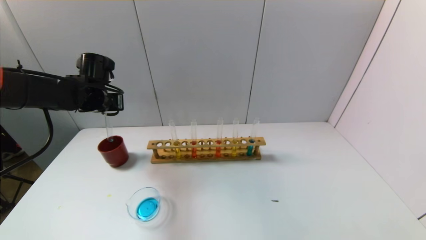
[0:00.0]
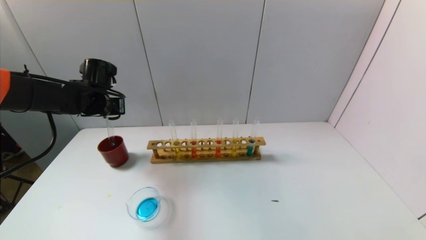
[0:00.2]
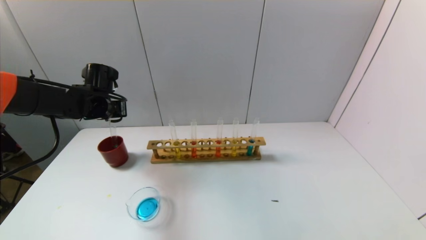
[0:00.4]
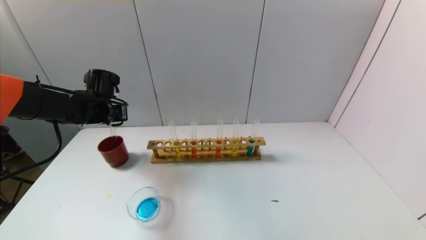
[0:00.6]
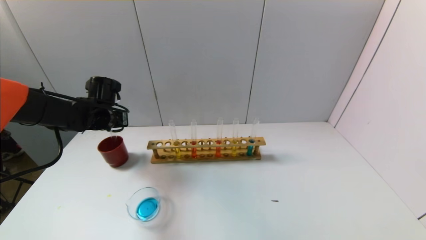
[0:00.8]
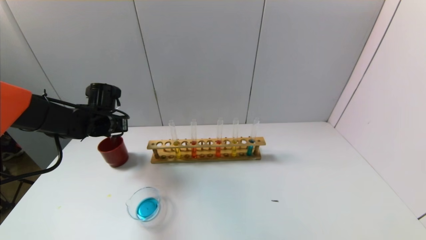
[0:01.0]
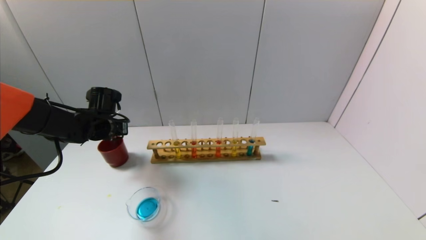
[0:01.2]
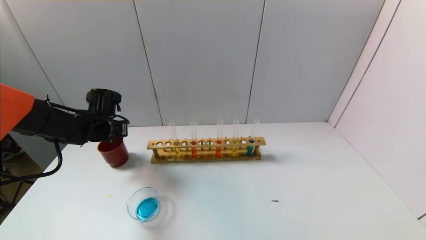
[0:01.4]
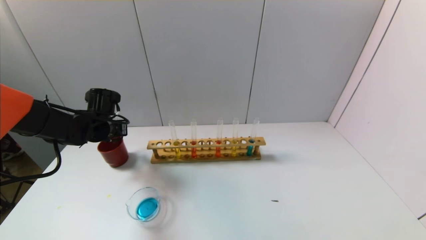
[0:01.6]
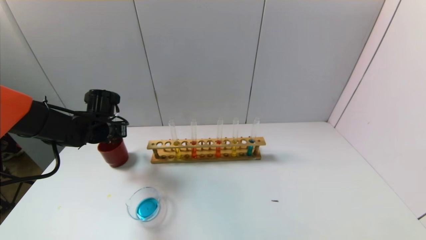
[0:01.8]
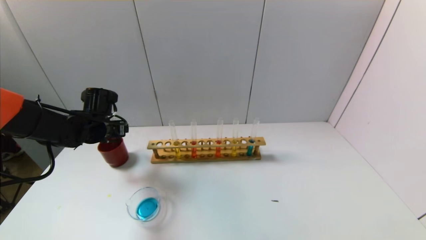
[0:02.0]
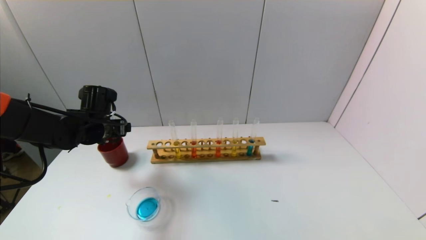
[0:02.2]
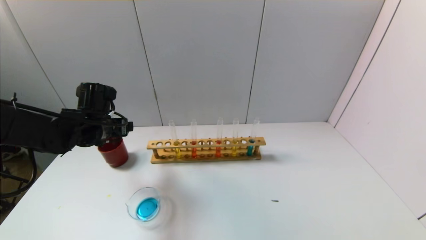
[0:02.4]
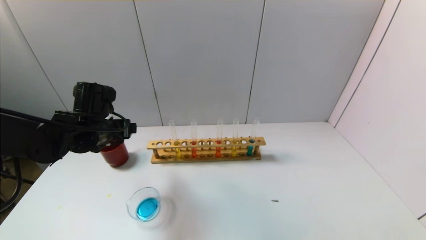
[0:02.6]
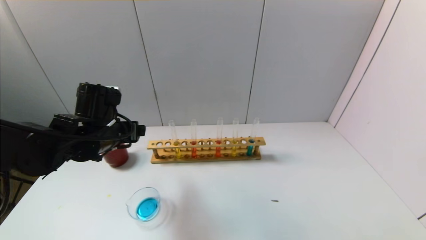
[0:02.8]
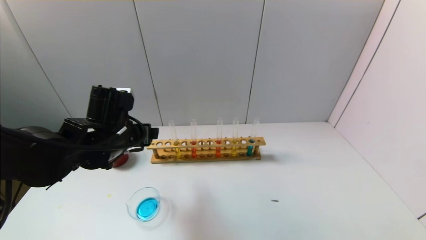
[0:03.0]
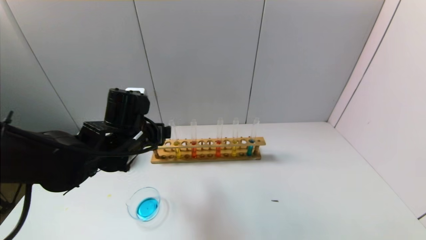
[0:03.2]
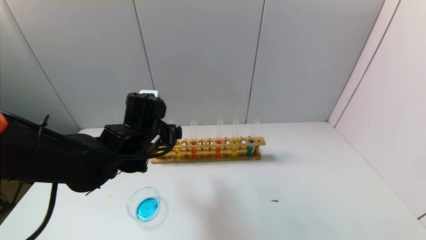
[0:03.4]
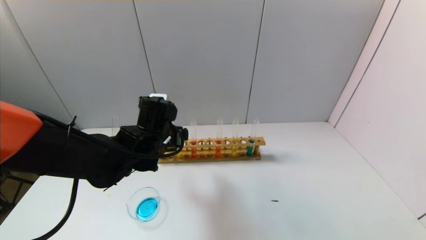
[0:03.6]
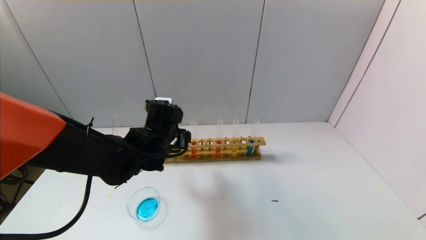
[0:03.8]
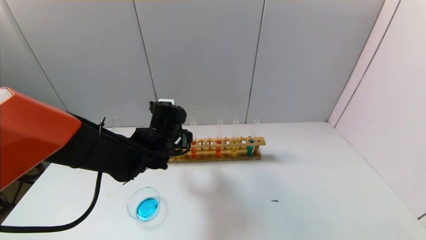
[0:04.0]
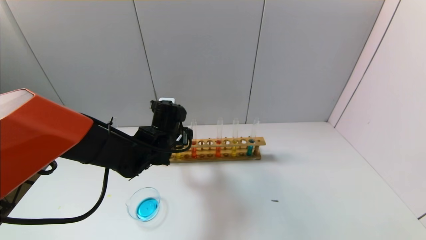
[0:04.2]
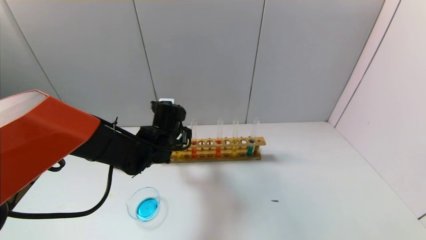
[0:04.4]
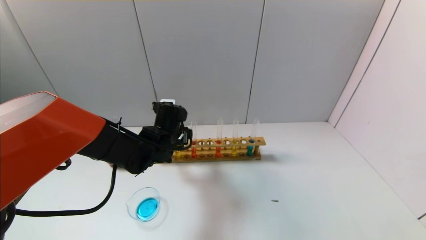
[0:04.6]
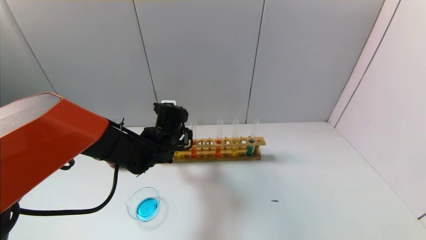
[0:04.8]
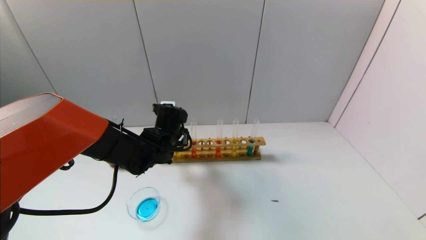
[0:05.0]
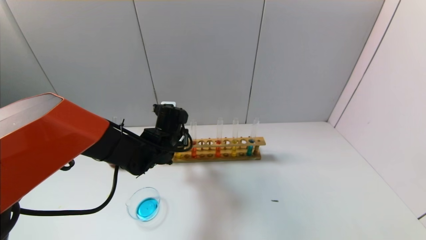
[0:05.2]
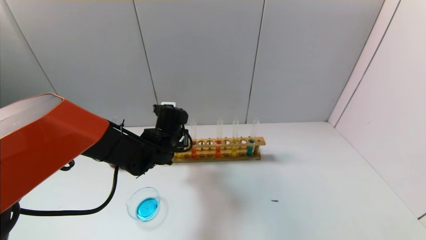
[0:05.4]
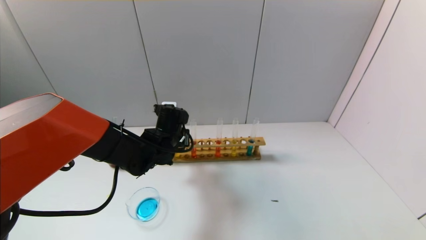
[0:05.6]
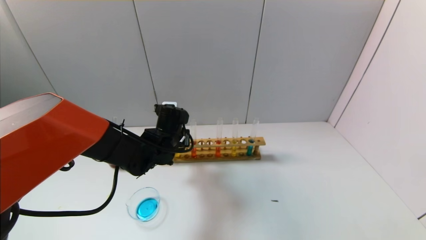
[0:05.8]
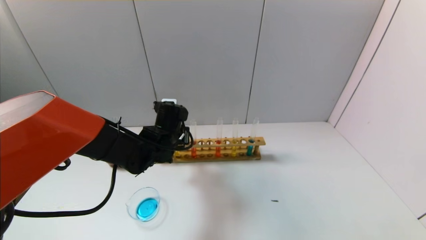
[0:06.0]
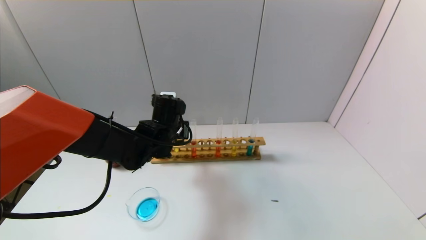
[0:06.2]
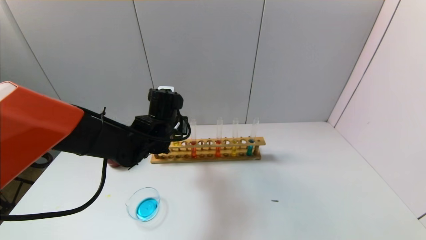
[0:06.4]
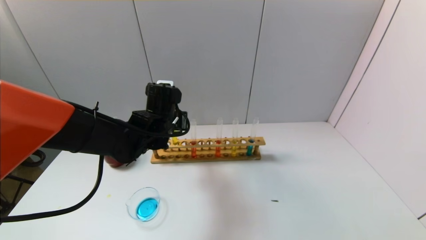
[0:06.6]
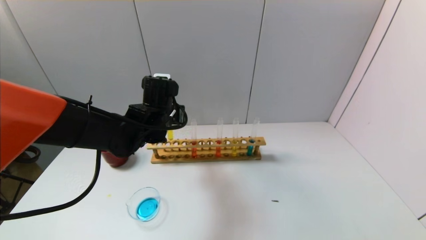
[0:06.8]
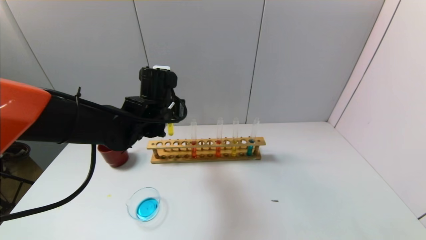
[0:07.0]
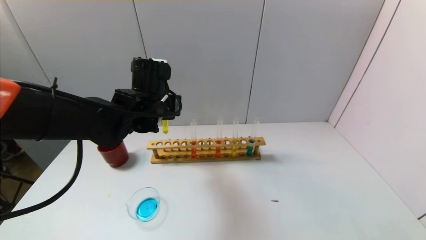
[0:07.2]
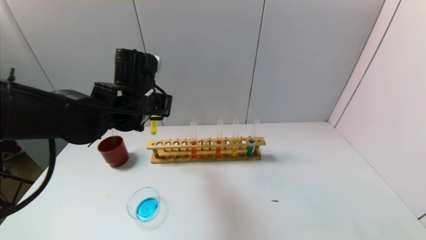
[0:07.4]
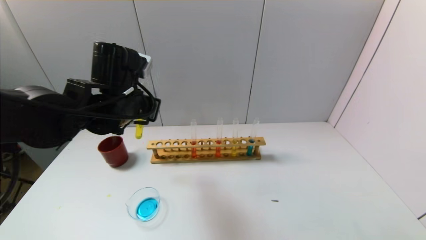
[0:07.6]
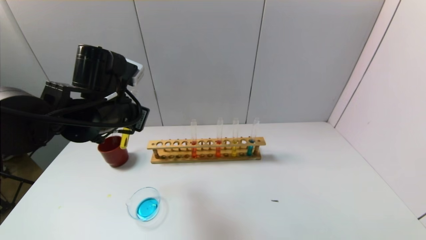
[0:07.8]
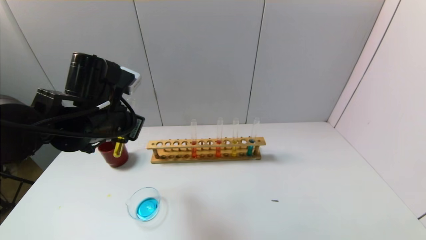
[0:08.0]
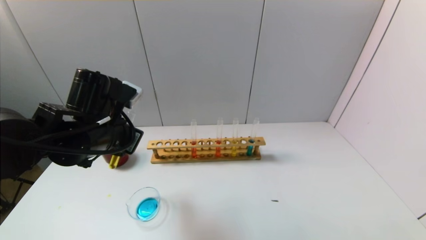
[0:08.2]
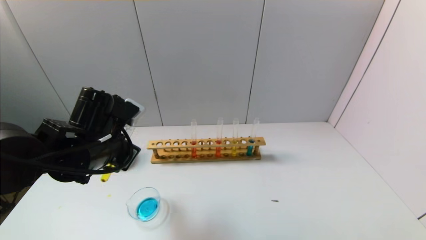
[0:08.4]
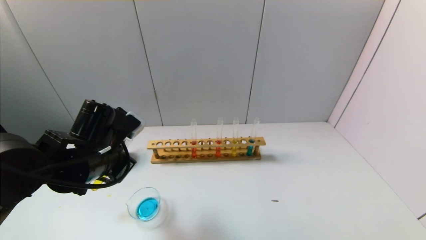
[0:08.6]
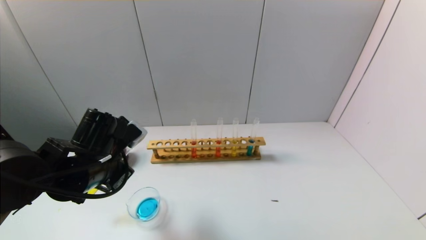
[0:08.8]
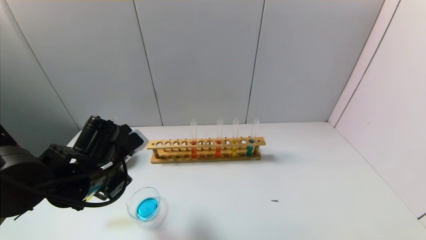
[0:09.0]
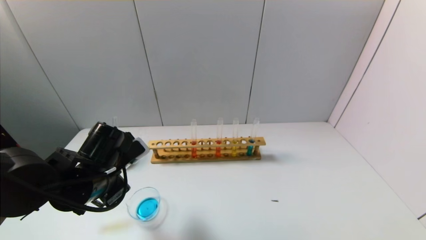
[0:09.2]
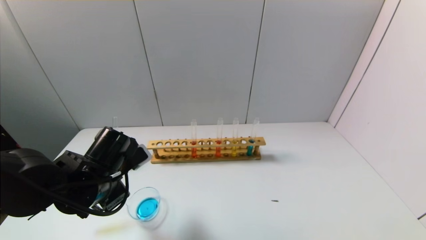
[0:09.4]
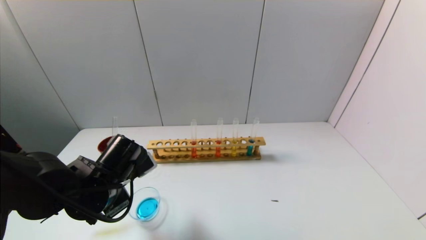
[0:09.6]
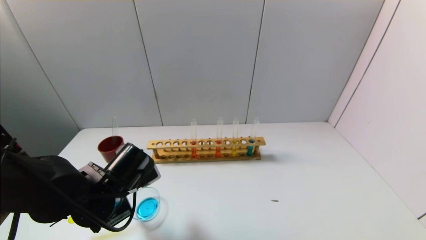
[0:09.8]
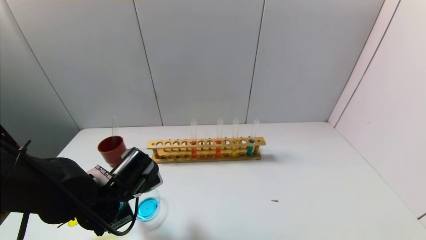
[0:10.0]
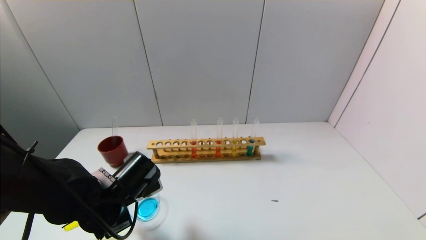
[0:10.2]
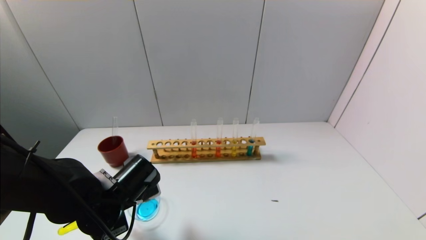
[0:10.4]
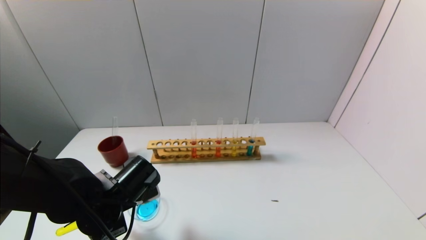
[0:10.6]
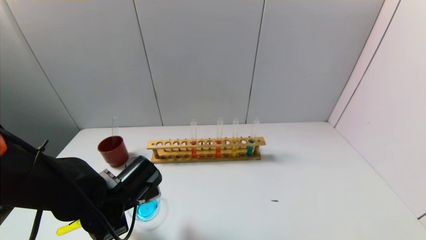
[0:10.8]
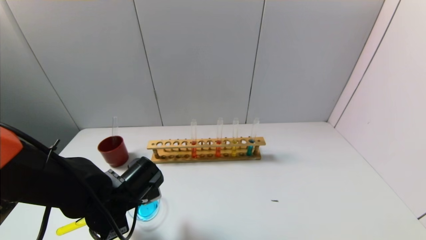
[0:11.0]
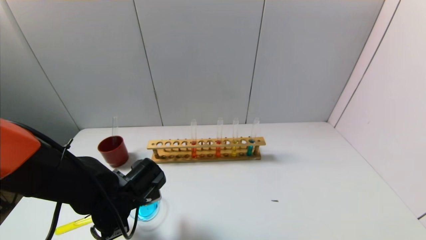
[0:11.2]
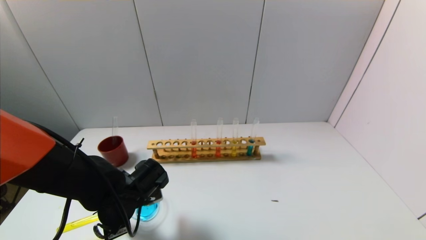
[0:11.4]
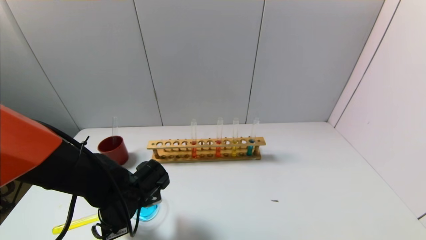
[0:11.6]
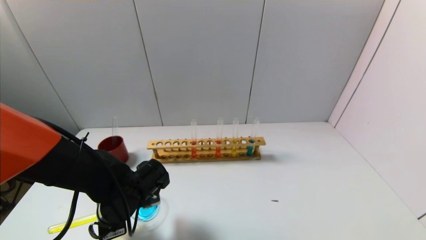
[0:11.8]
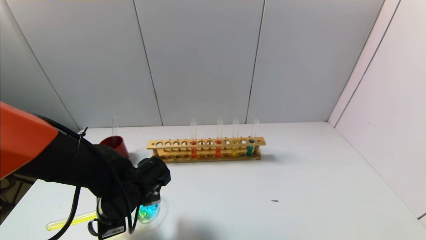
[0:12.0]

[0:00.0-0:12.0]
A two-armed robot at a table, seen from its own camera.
Task of the whole recording: pick up the test tube with yellow pigment and the test tube with blue pigment by grippers and pour them into the beaker.
Step, 0:01.8 to 0:05.4: Grasp the yellow reagent with the left gripper.
0:00.0 to 0:01.6: The left gripper travels downward by some 10 cm.
0:01.6 to 0:03.0: The left gripper goes approximately 15 cm backward, to the right and upward, and opens its fingers.
0:03.0 to 0:04.4: The left gripper shifts roughly 10 cm forward, to the right and downward.
0:04.4 to 0:06.0: The left gripper closes.
0:06.0 to 0:07.6: The left gripper heads upward, backward and to the left, covering about 15 cm.
0:07.6 to 0:09.0: The left gripper moves downward and backward, about 10 cm.
0:09.0 to 0:10.4: The left gripper shifts roughly 5 cm downward.
0:10.4 to 0:12.0: The grippers move only a little.

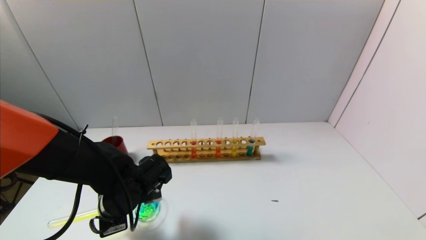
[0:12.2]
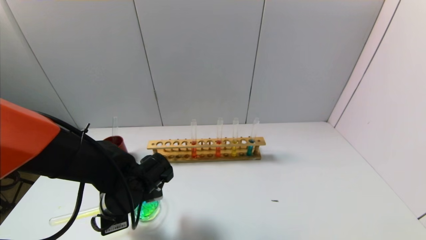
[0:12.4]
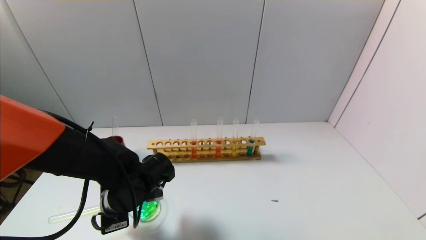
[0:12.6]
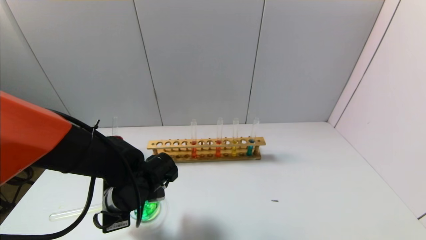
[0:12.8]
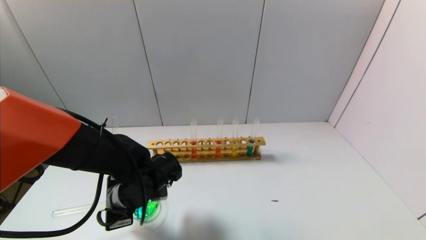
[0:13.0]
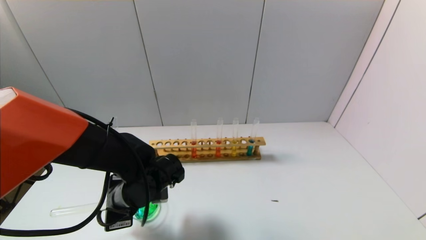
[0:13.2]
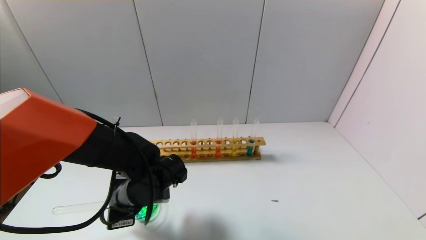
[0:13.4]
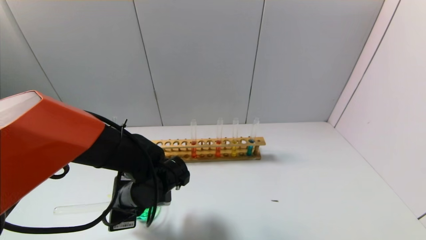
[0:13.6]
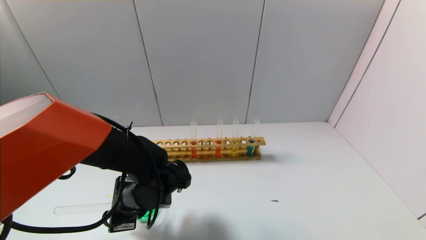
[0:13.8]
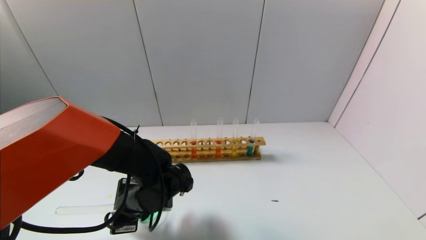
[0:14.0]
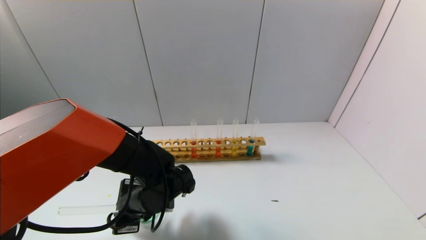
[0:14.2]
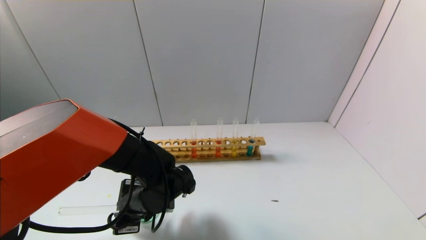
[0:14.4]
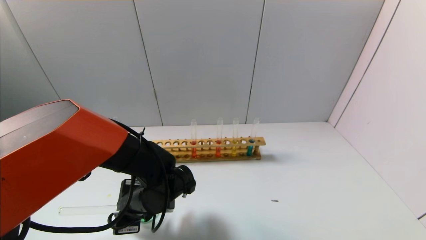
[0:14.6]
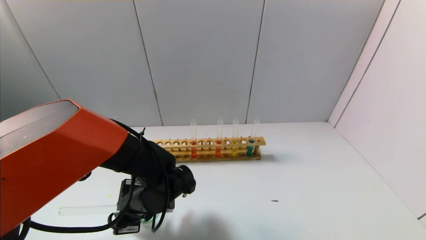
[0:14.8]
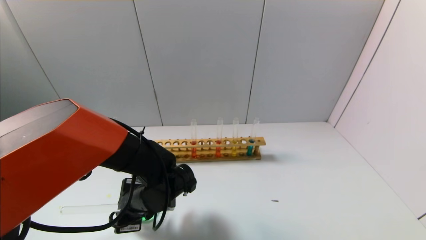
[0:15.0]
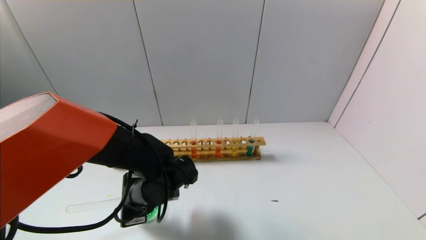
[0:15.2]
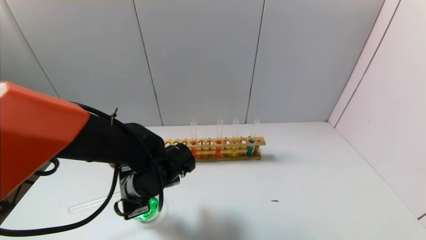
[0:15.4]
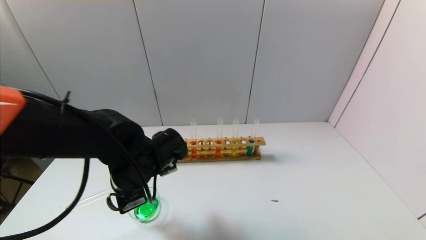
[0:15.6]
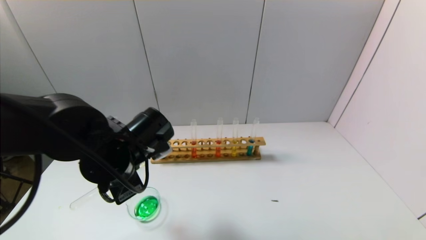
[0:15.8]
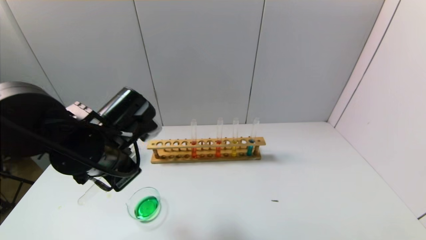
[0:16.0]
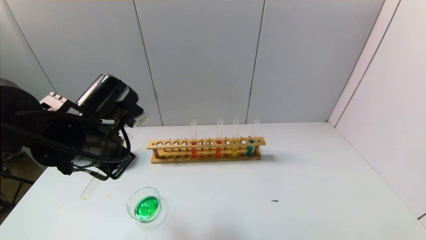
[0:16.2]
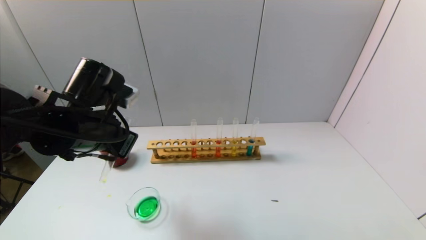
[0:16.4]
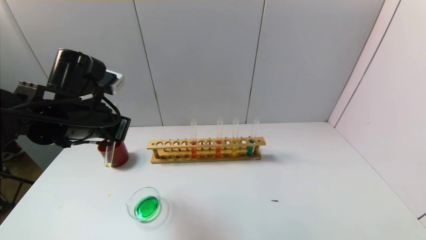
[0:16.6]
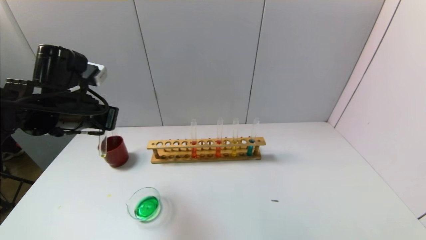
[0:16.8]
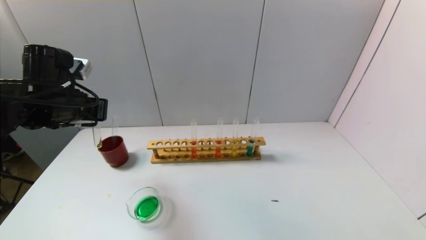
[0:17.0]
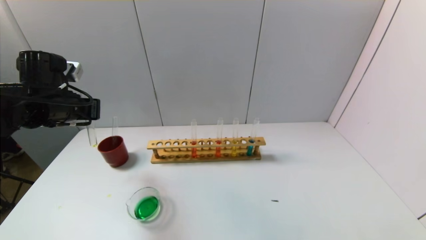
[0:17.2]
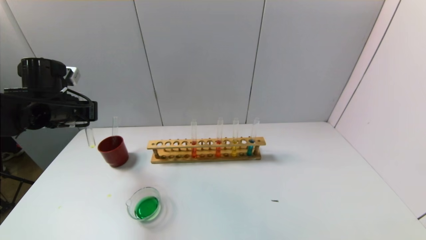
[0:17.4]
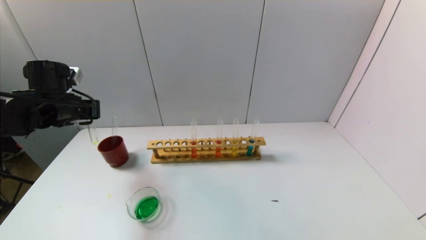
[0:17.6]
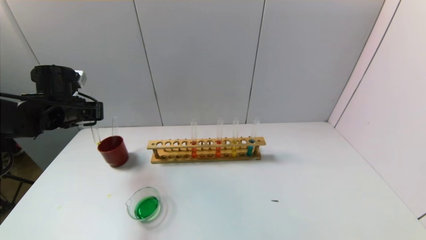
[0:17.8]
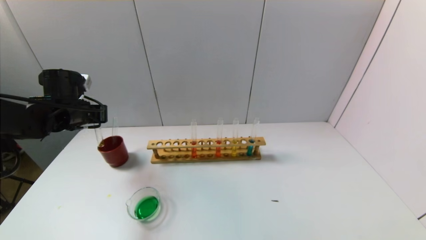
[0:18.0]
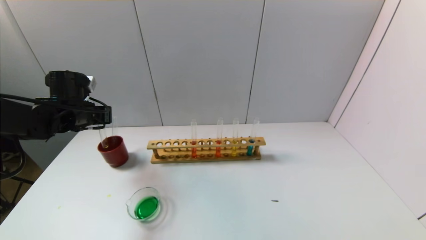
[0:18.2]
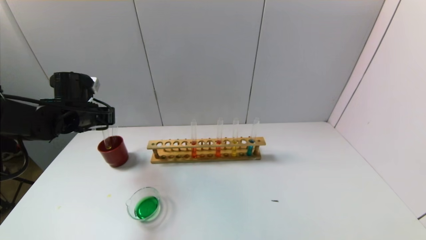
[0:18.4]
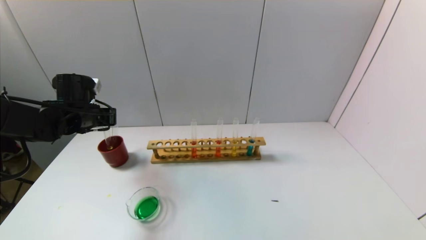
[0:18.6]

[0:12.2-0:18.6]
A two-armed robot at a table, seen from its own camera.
Task of the whole recording: pick up the test tube with yellow pigment and the test tube with blue pigment by grippers and pour them into the beaker.
Step, 0:12.2 to 0:15.2: Pour the yellow reagent into the graduated cylinder with the left gripper.
0:12.2 to 0:15.4: The grippers move only a little.
0:15.4 to 0:17.0: The left gripper goes some 20 cm to the left and upward.
0:17.0 to 0:18.6: The left gripper is displaced forward and downward by approximately 10 cm.
